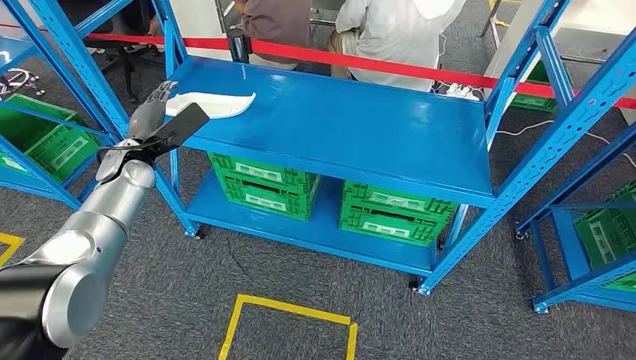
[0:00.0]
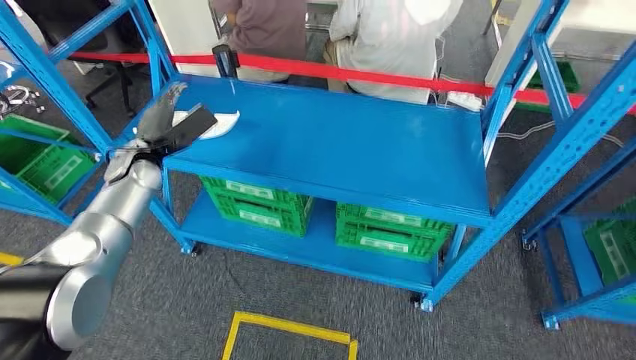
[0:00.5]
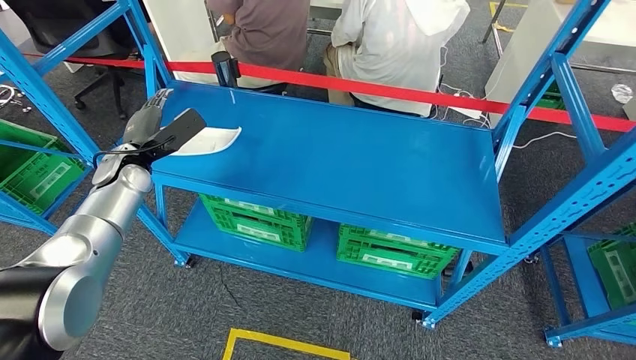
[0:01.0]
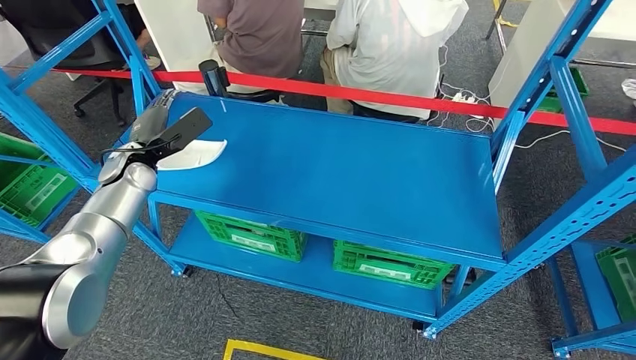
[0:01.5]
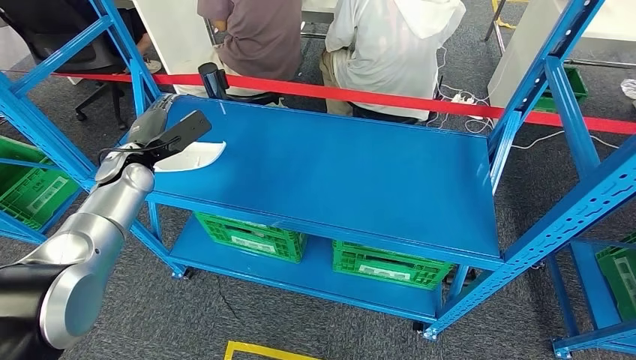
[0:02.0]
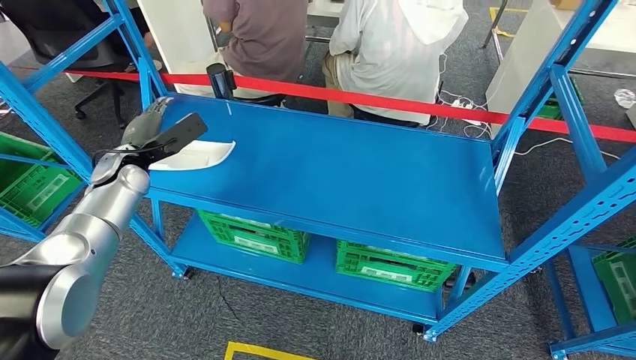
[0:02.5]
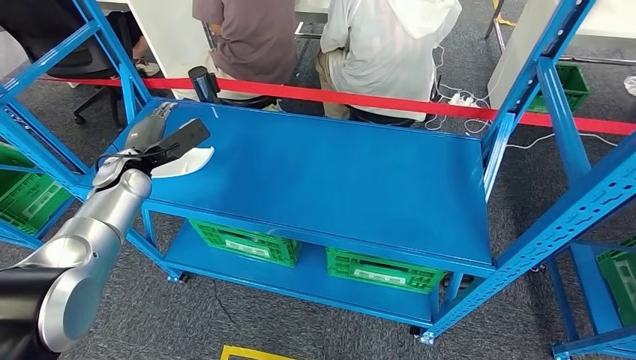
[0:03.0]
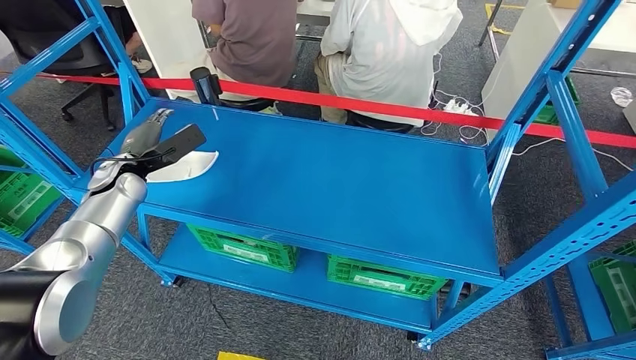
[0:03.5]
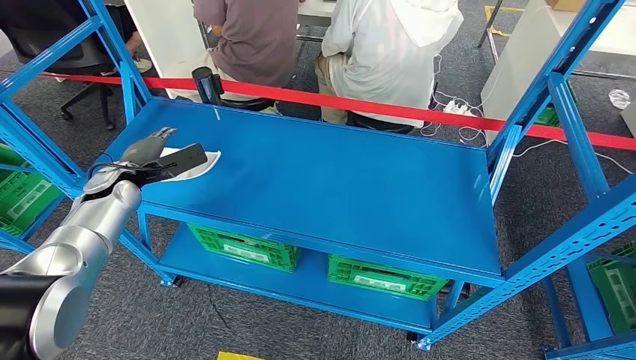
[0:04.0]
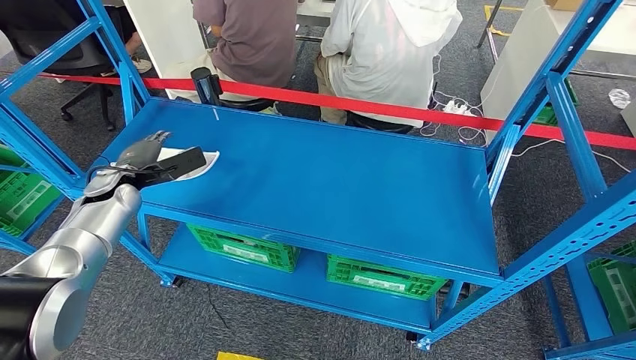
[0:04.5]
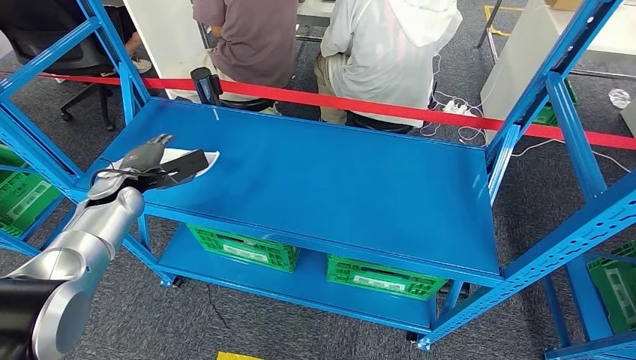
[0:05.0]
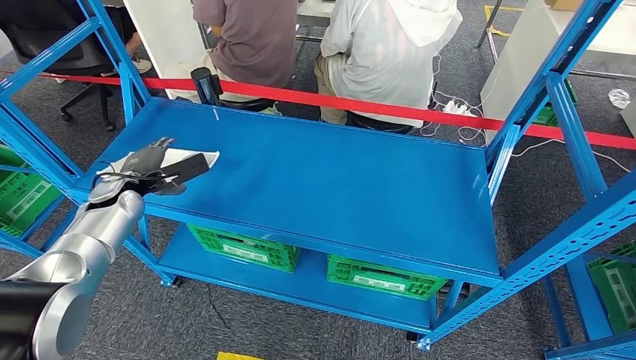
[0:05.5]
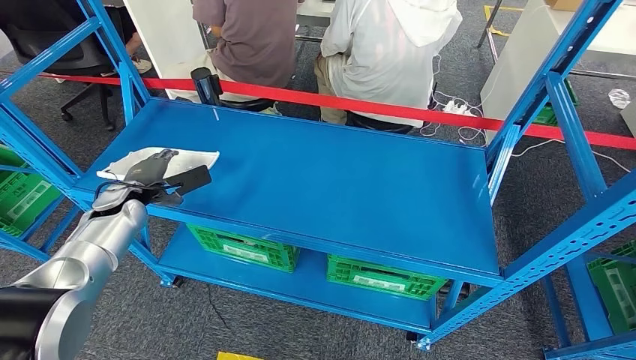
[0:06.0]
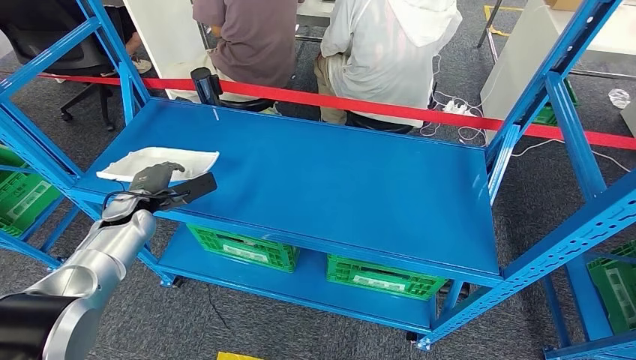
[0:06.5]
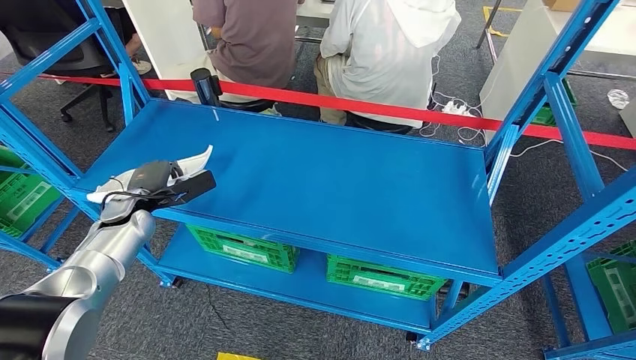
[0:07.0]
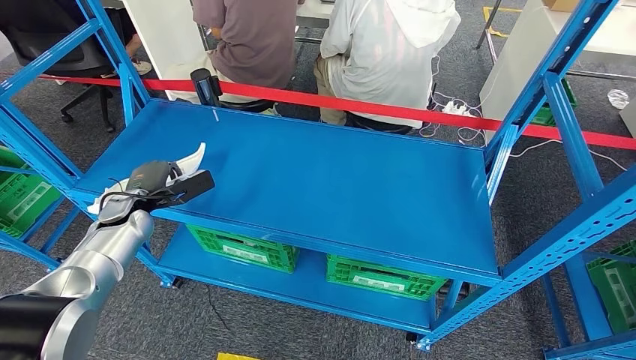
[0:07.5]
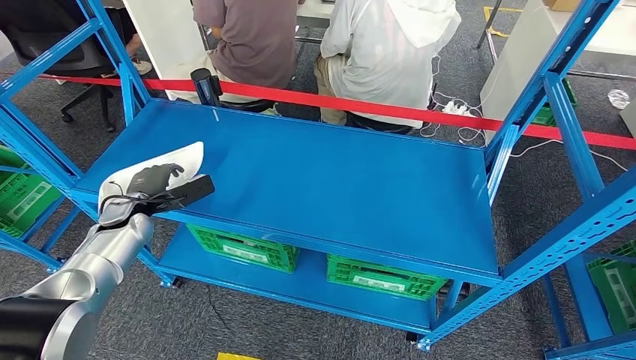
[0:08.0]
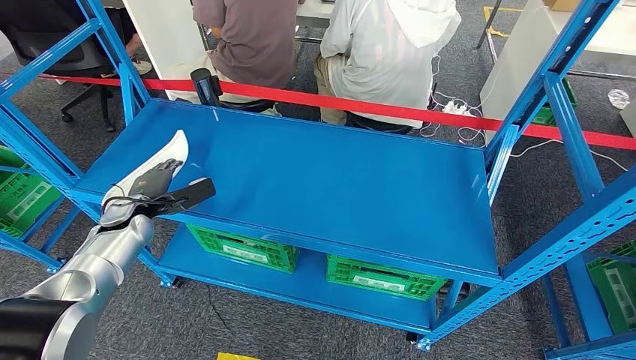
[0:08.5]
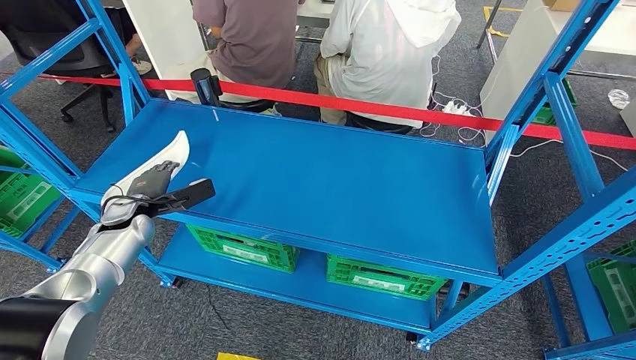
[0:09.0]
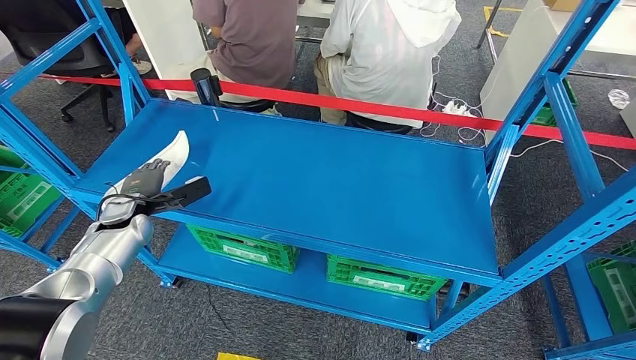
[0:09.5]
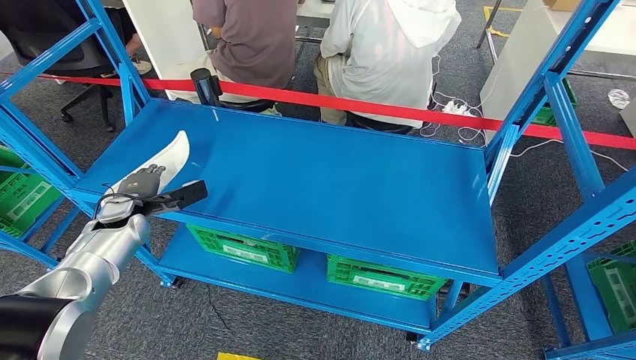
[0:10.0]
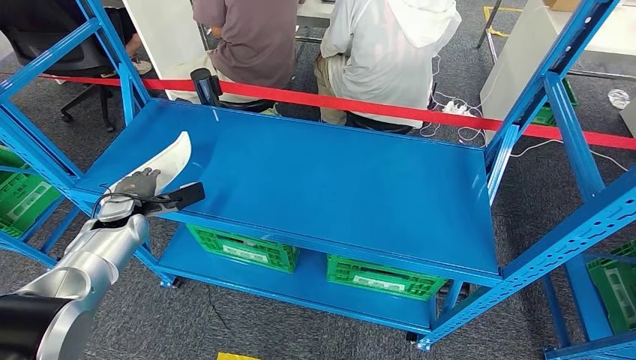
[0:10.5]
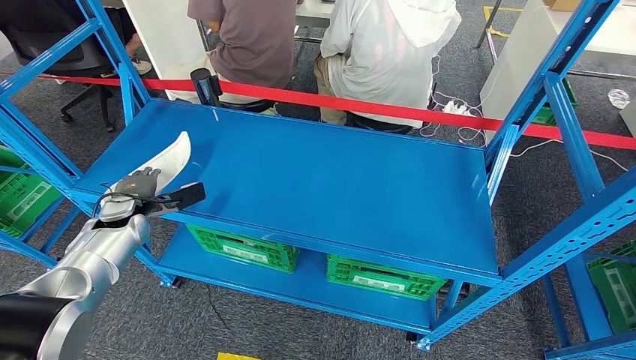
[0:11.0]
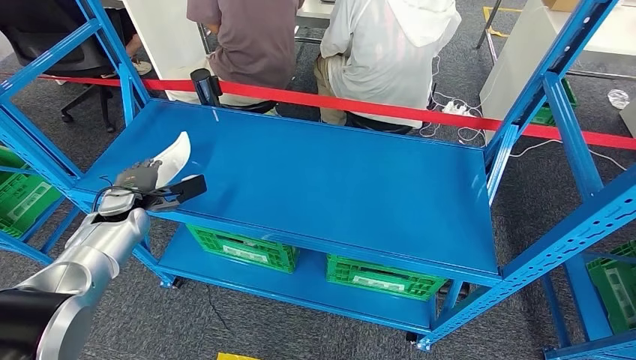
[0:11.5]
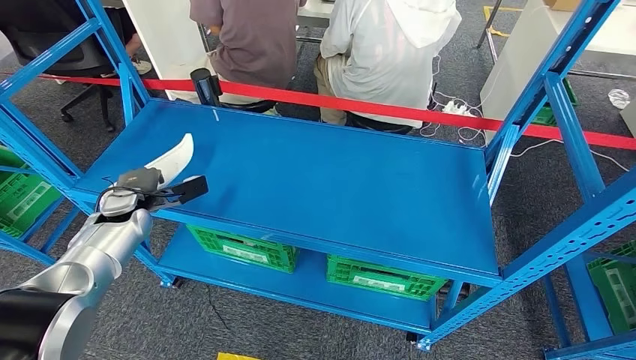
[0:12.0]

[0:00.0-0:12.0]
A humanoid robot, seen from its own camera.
0:04.0 to 0:06.0: The hands stay close to where they were, moving slightly.
0:06.0 to 0:12.0: The hands make only small movements.

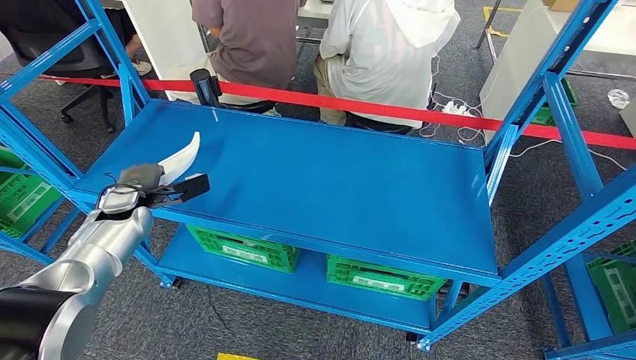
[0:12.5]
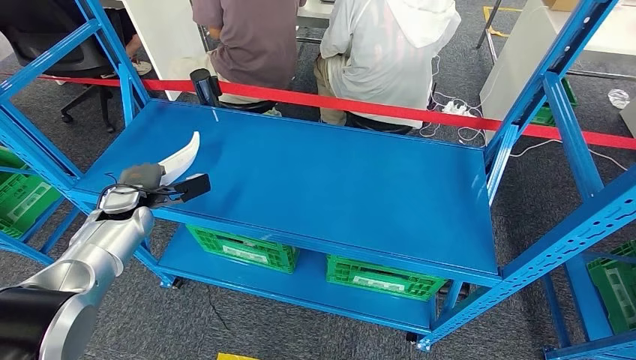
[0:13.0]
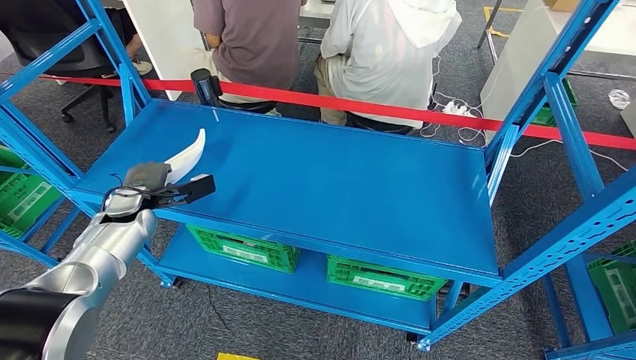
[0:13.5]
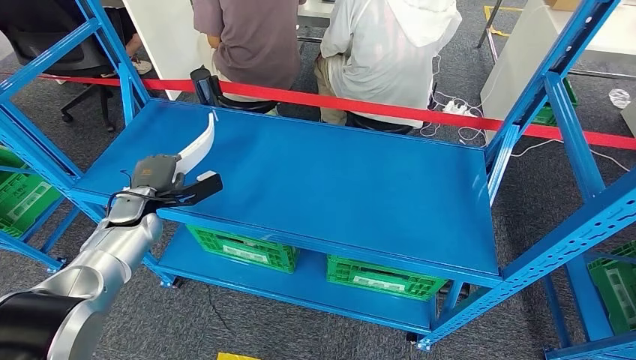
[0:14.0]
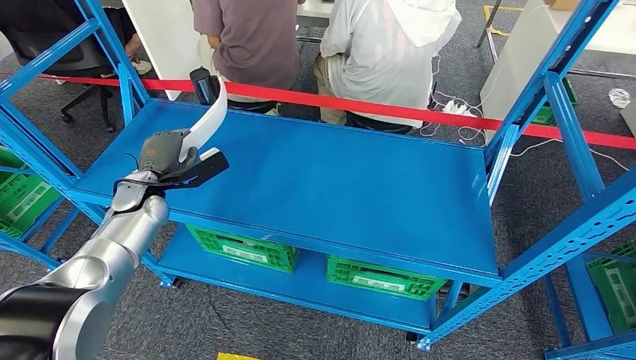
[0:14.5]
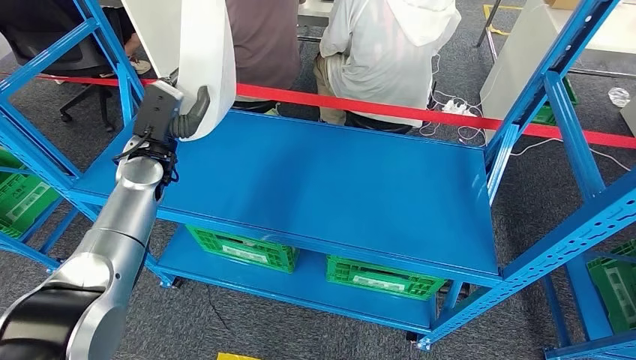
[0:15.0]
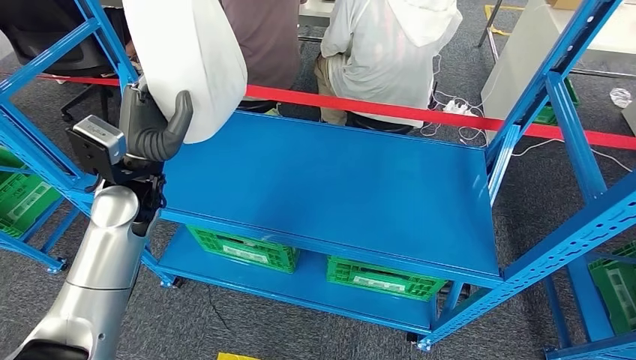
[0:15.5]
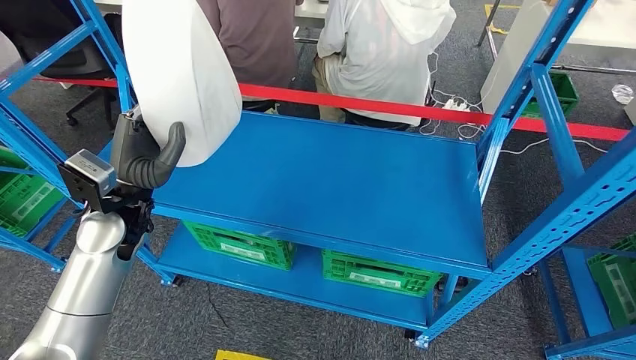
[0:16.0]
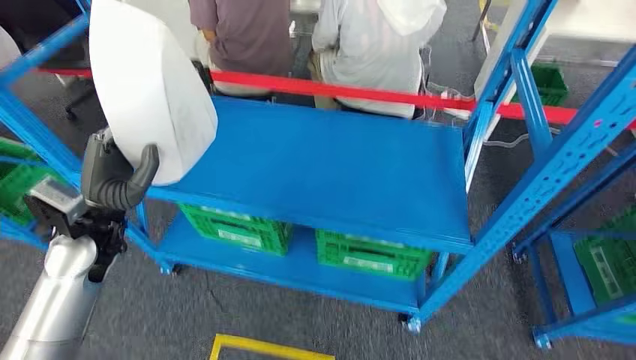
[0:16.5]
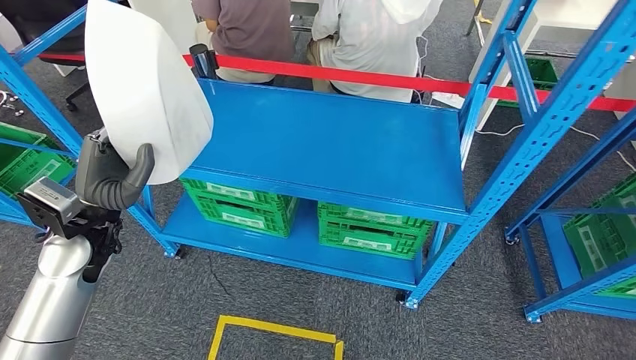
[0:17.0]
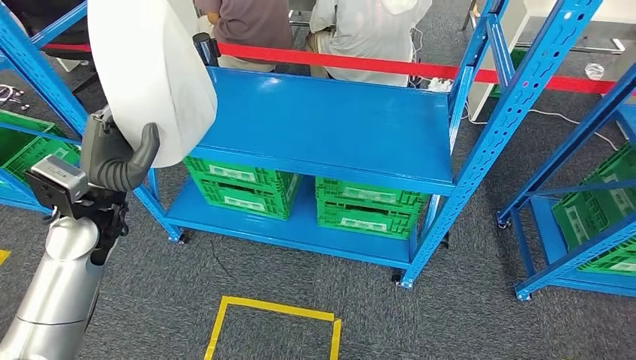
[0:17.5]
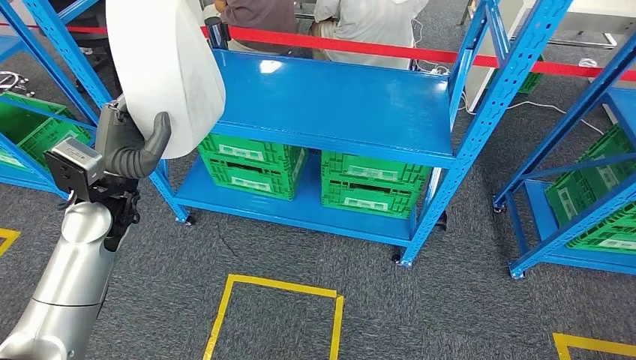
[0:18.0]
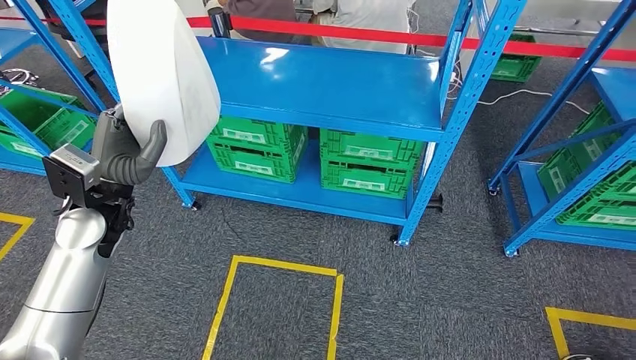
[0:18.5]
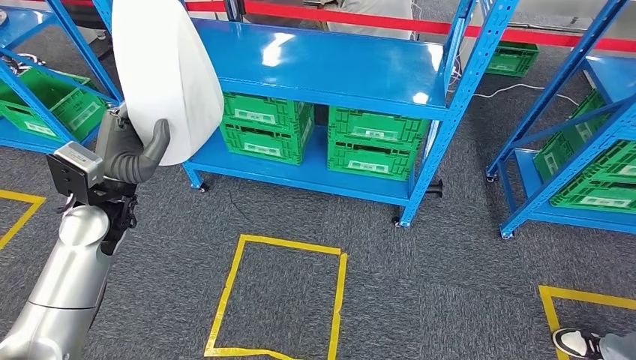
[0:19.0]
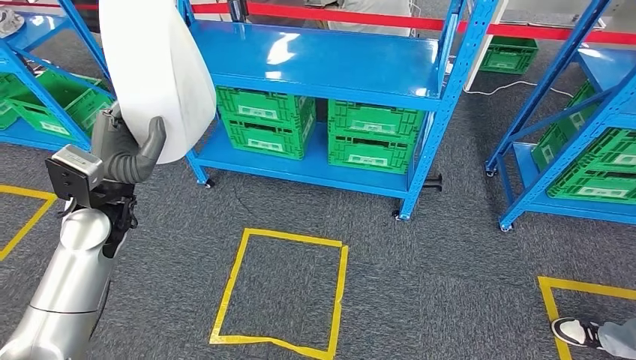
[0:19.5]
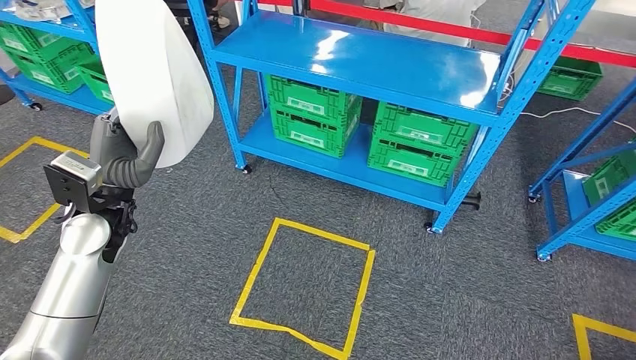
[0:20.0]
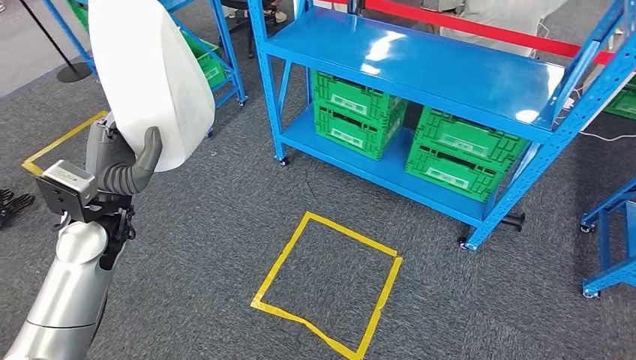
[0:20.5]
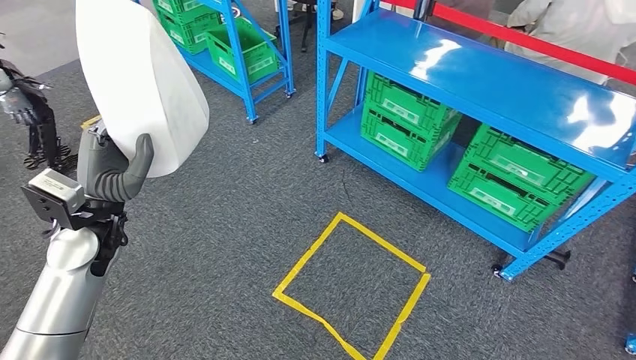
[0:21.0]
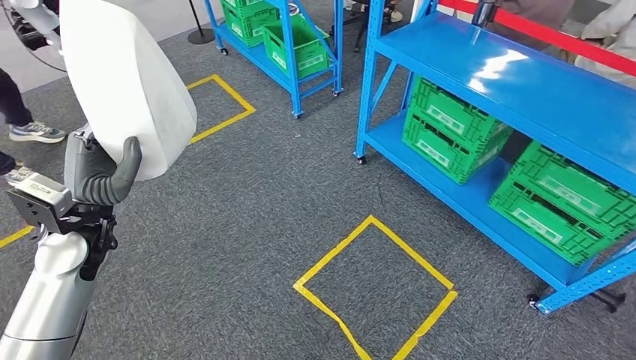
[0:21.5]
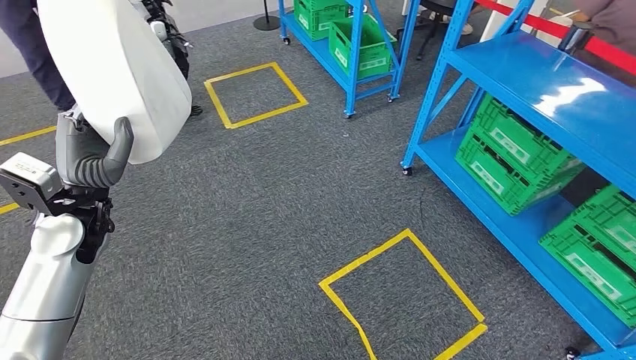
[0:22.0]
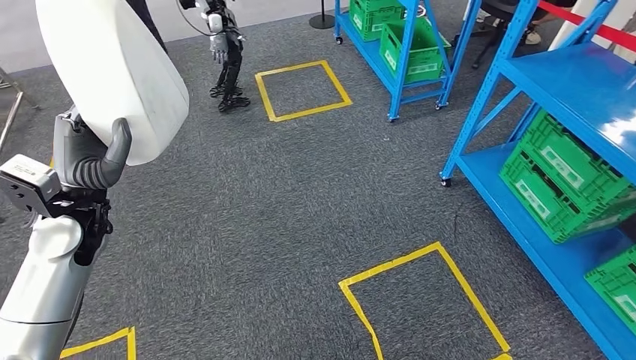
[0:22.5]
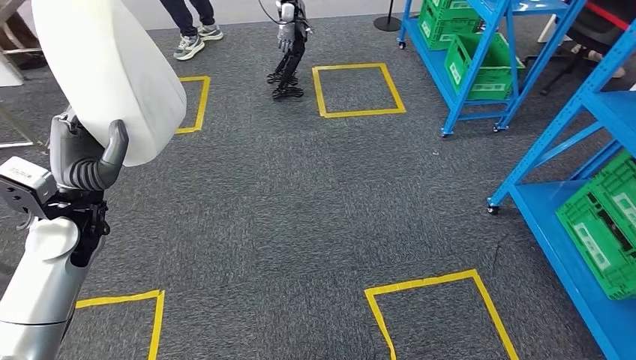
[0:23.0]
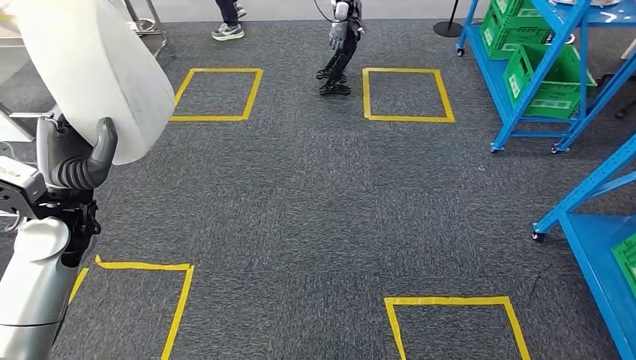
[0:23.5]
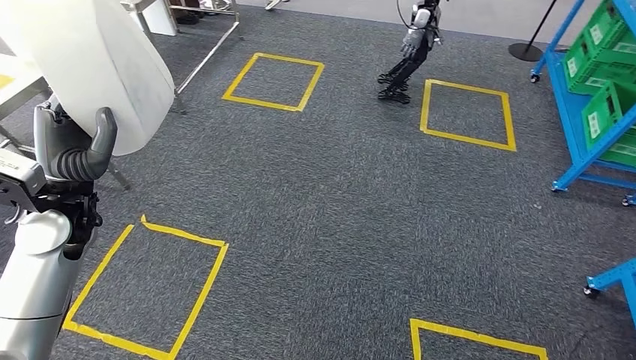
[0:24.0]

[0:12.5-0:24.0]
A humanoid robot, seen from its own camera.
Step, 0:12.5 to 0:17.5: Pick up the large material from the shelf.
